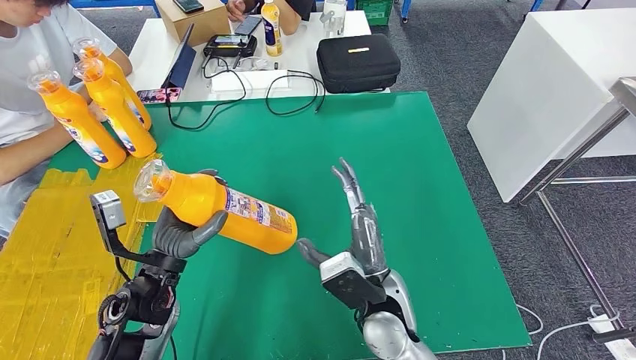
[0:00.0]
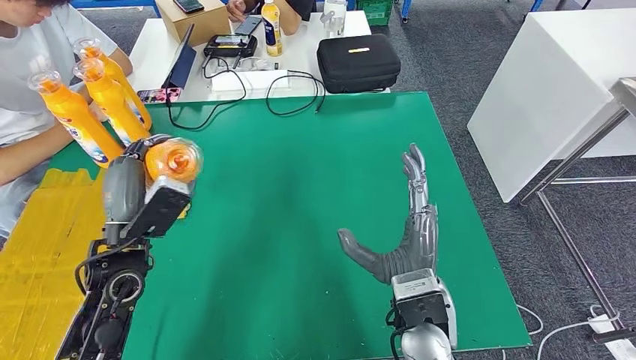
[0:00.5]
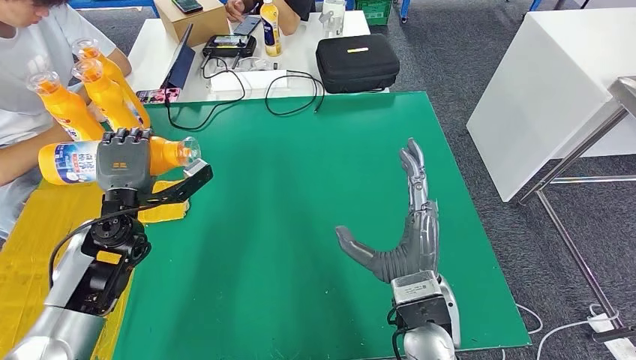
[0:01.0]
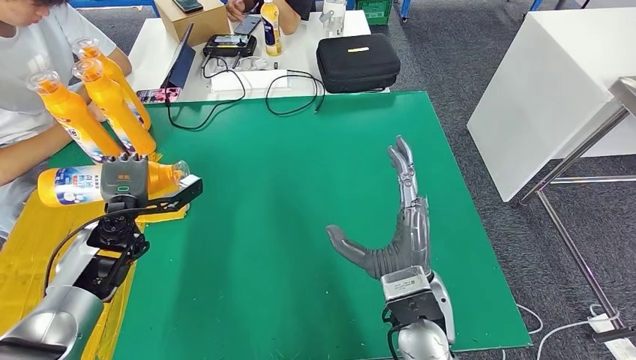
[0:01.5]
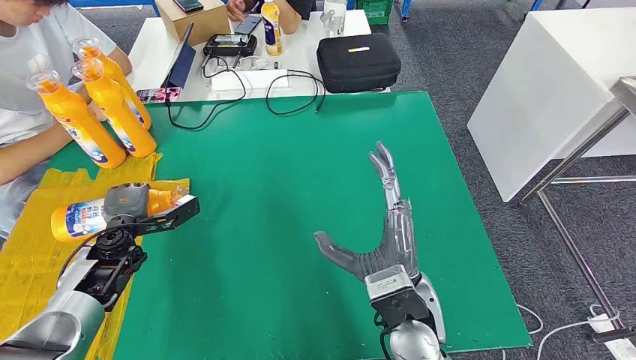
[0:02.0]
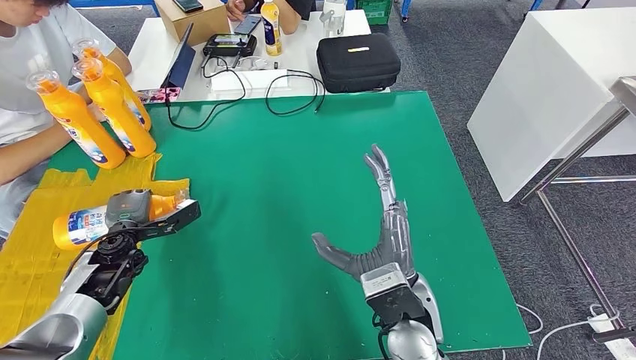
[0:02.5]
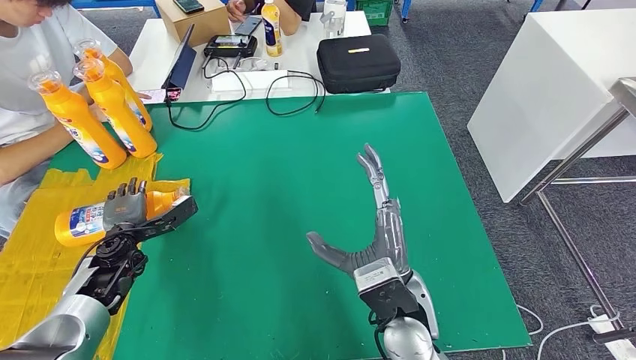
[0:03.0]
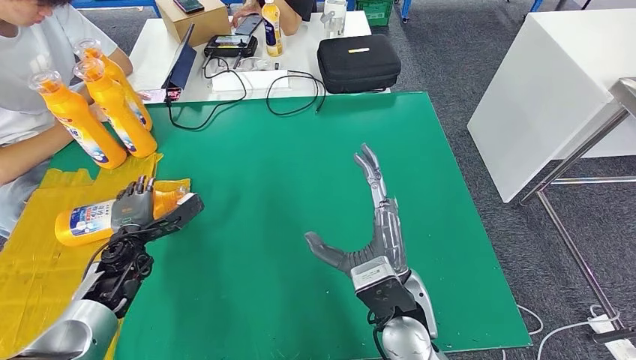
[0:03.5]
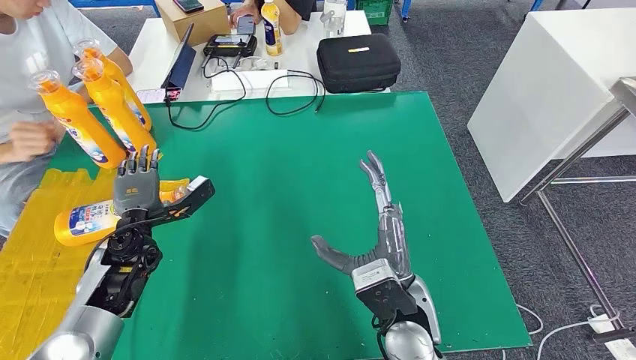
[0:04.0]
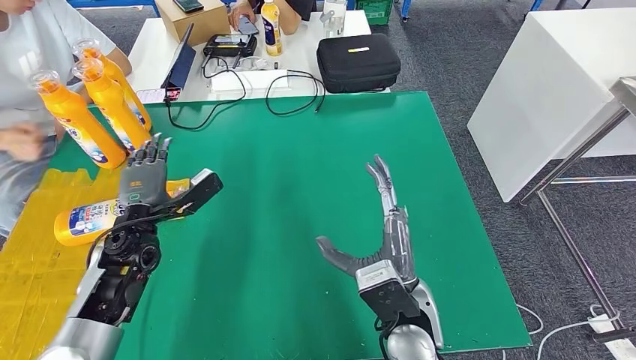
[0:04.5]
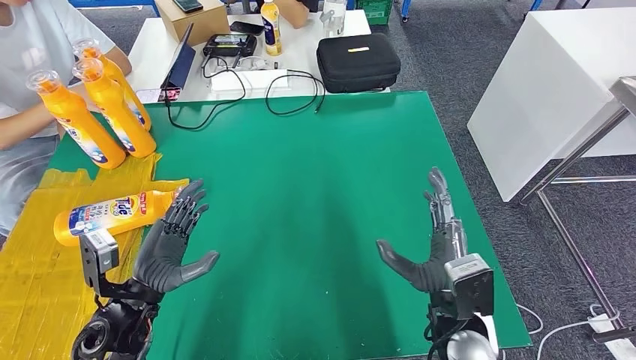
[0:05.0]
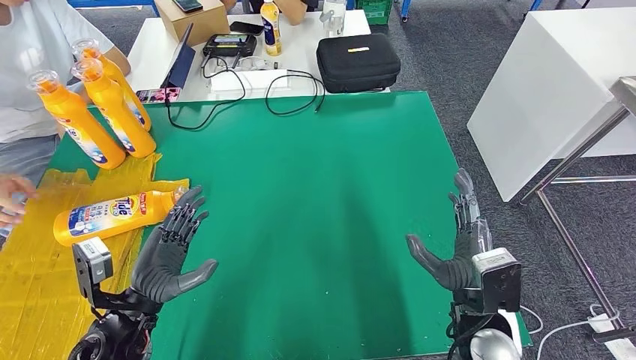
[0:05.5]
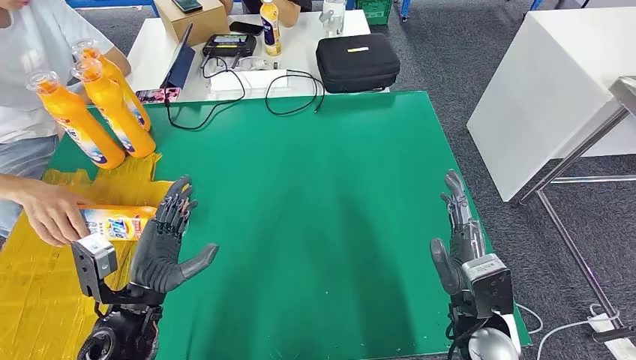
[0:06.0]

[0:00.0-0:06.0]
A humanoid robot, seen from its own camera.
Step, 0:00.5 to 0:05.5: Flip the fast-moving consumer goods bottle to the front side.
0:00.0 to 0:02.0: The right hand shifts by some 5 cm. The left hand shifts about 15 cm to the left, forward and downward.
0:02.0 to 0:04.0: The hands move only a little.
